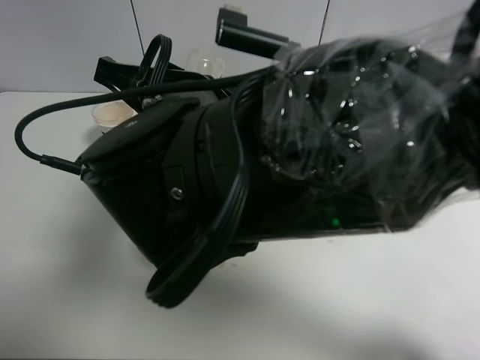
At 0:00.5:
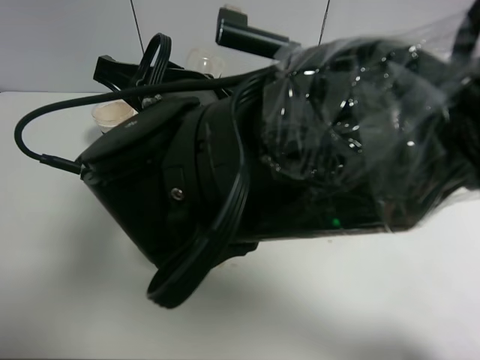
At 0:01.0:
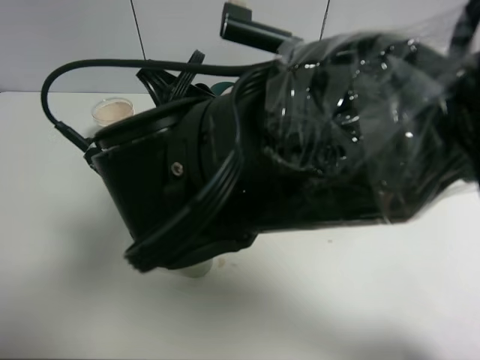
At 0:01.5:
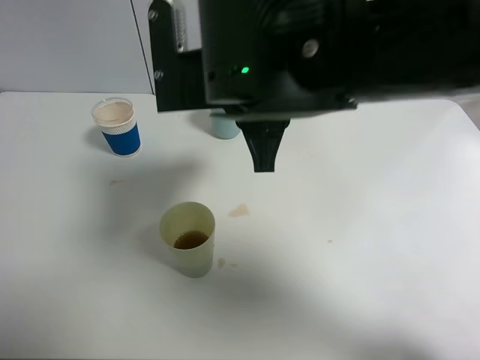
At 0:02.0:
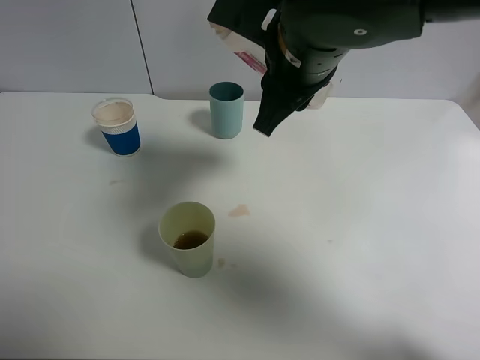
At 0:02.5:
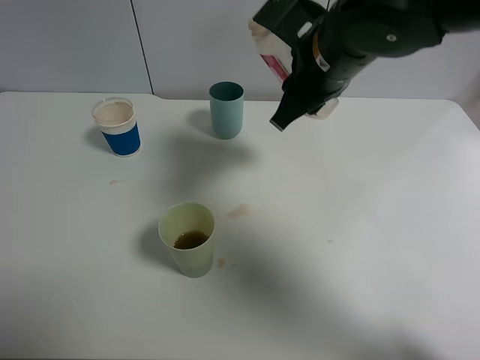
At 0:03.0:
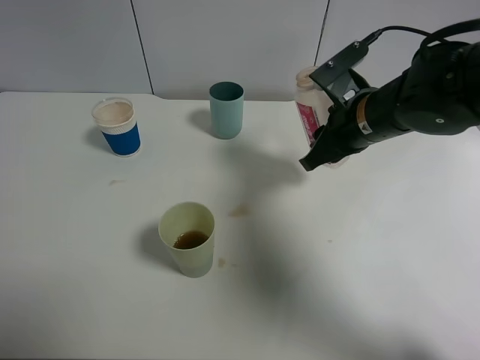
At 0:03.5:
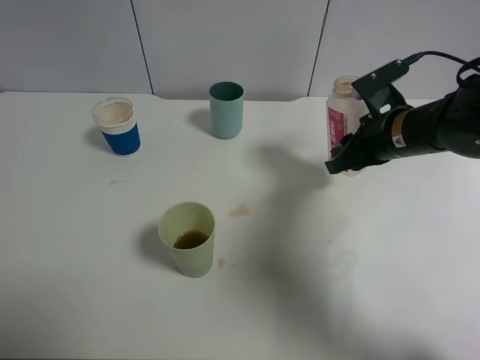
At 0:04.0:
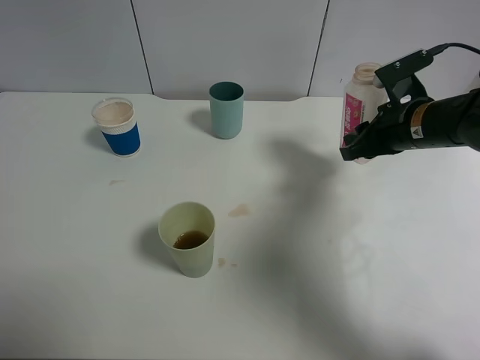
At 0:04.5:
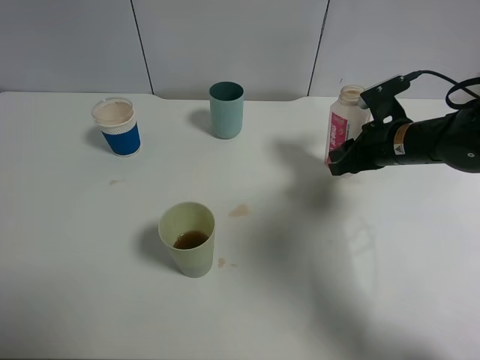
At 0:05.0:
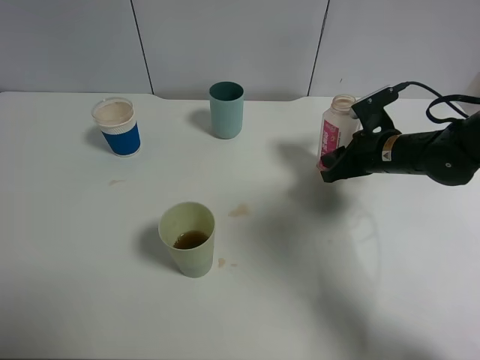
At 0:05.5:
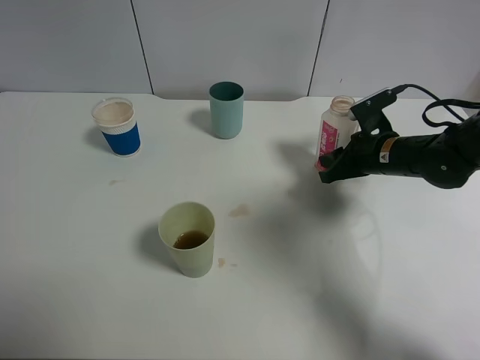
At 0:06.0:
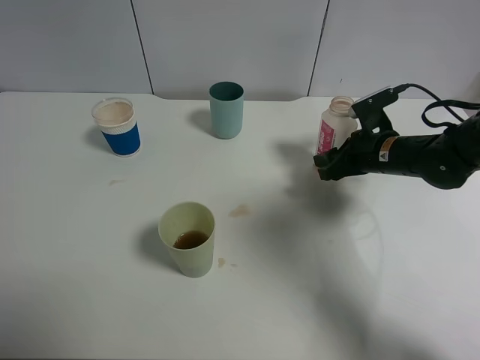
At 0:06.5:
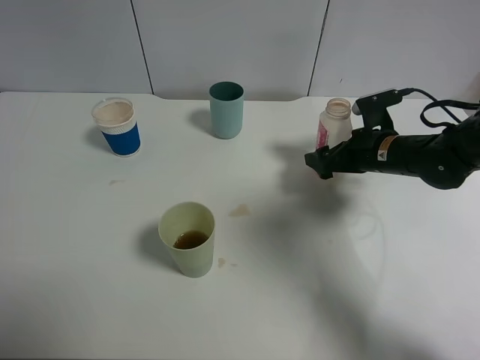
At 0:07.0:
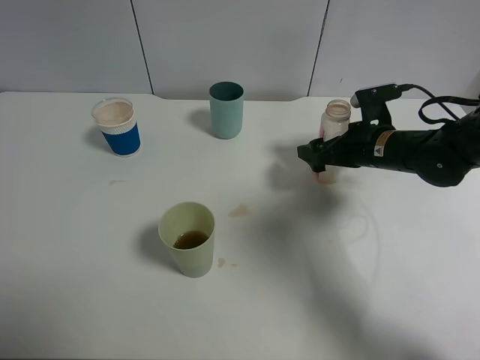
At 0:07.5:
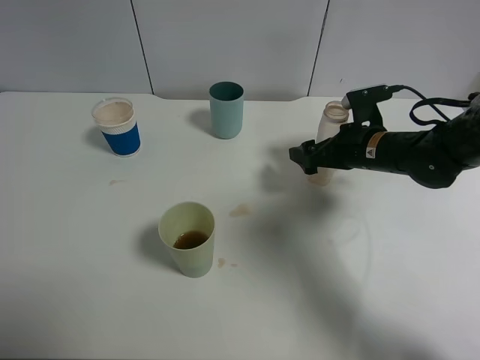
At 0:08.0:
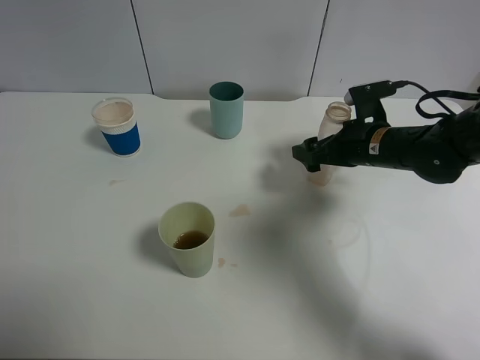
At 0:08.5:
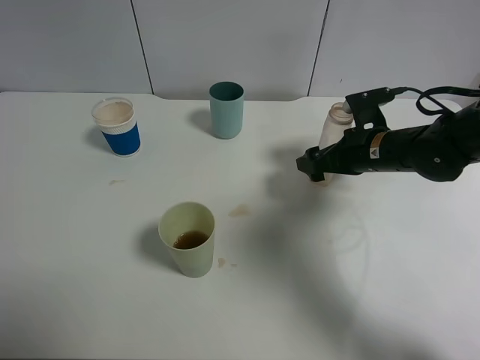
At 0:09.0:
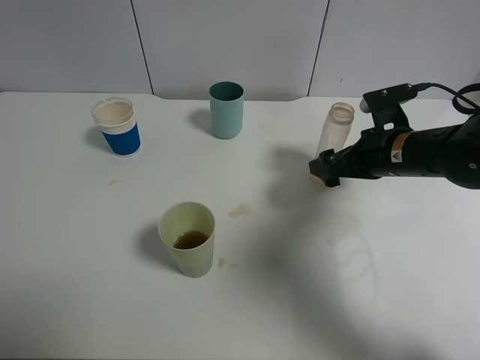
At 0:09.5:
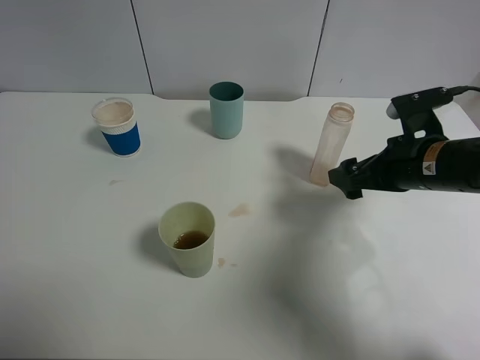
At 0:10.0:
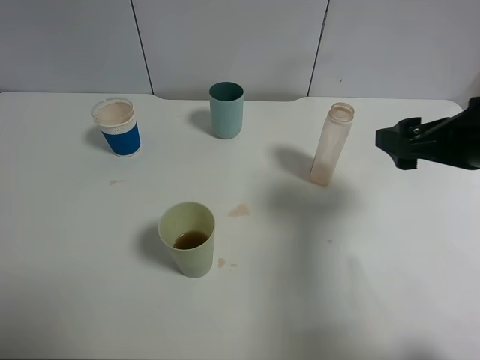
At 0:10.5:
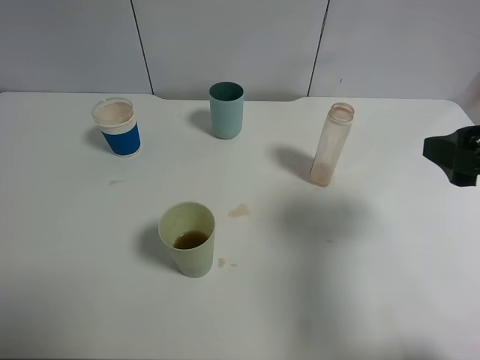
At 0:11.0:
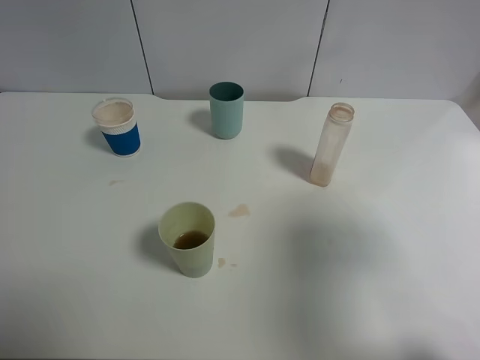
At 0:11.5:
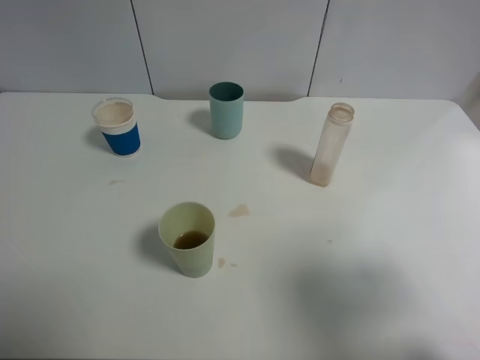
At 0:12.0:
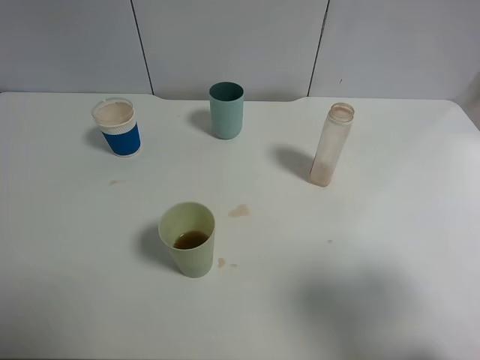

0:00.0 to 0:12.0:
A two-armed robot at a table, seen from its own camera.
Task of the whole recording: use a clamp to hold the bottle of the drink, pour the beverage into a random cup, then clamp the cup containing the drink and pour the drink into another random cup.
Step, 0:01.5 to 0:07.5: Place the drink bottle on the table with right gripper.
0:00.0 to 0:02.0: The right gripper shifts roughly 10 cm to the right and forward.
0:02.0 to 0:04.0: The right gripper is displaced to the right and downward by approximately 25 cm.
0:04.0 to 0:06.0: The right gripper travels downward by about 5 cm.
0:06.0 to 0:08.0: The right gripper opens.
0:08.0 to 0:10.0: The right gripper travels backward and upward by some 15 cm.
0:10.0 to 0:12.0: The right gripper is displaced backward by approximately 20 cm.

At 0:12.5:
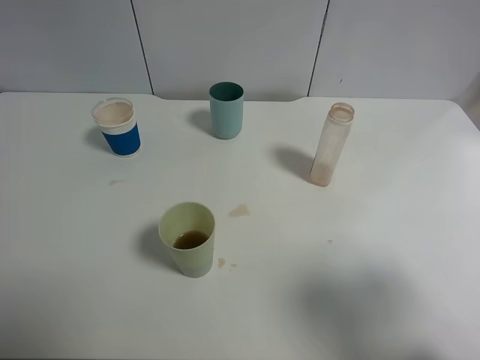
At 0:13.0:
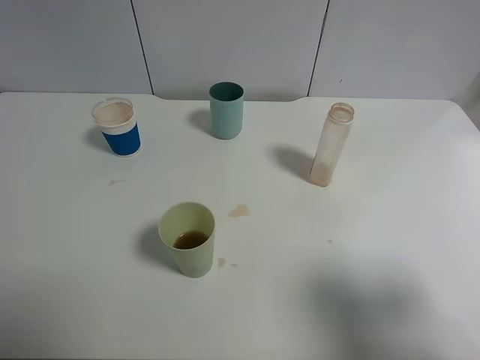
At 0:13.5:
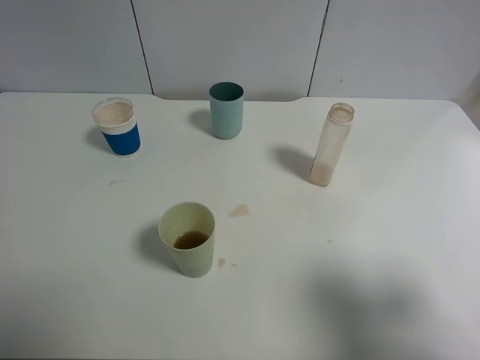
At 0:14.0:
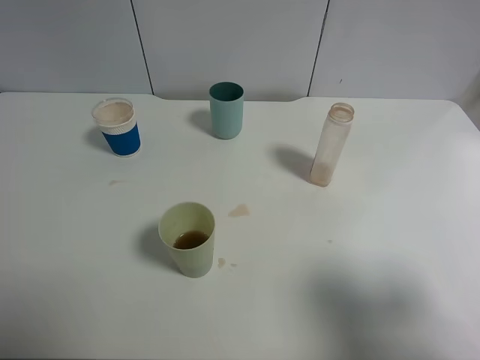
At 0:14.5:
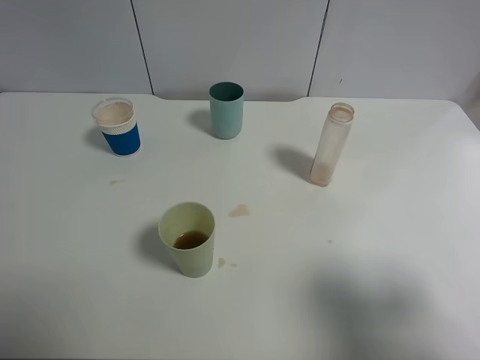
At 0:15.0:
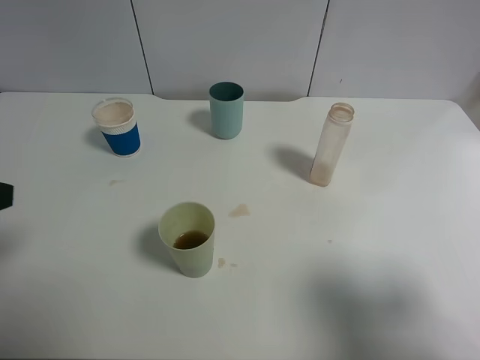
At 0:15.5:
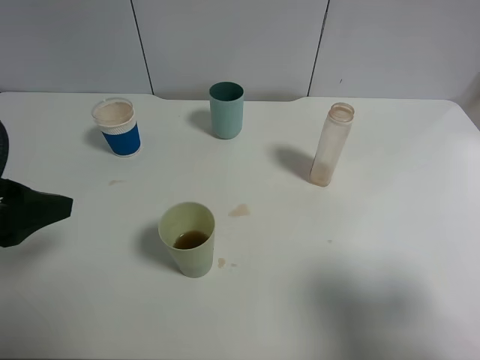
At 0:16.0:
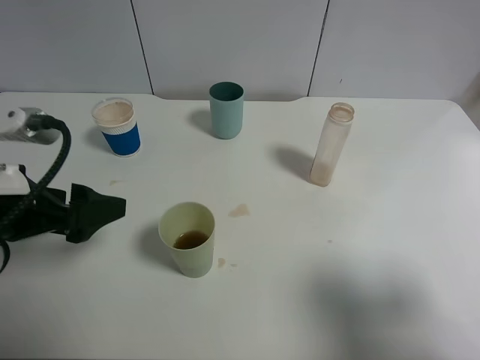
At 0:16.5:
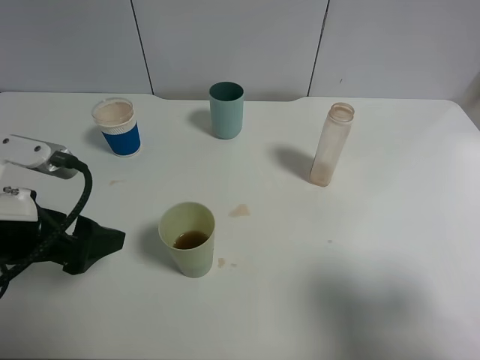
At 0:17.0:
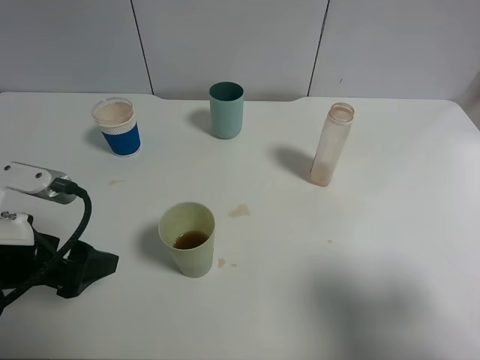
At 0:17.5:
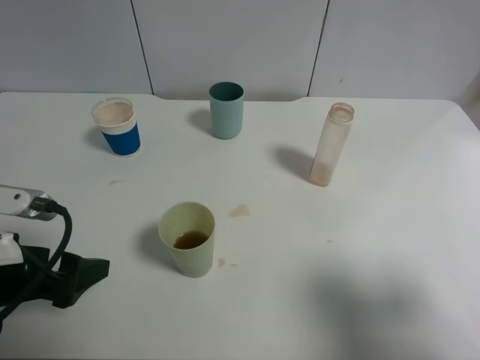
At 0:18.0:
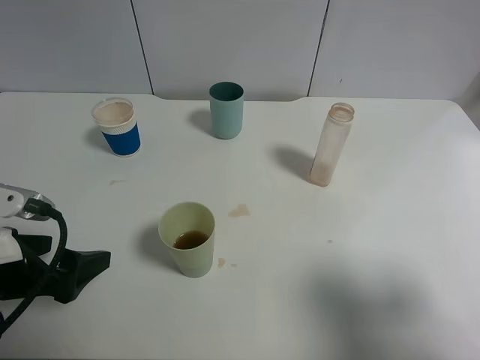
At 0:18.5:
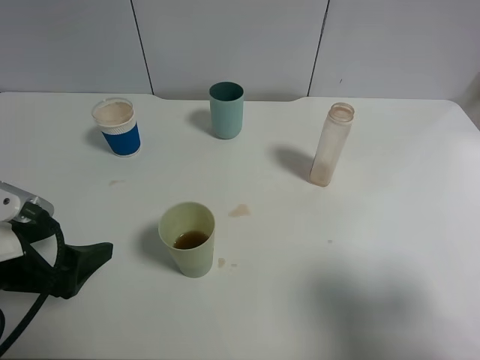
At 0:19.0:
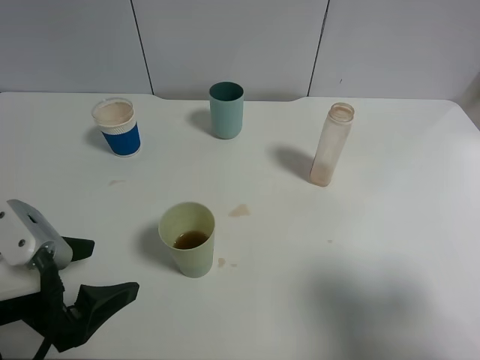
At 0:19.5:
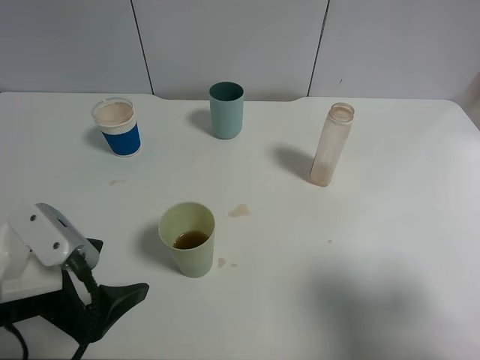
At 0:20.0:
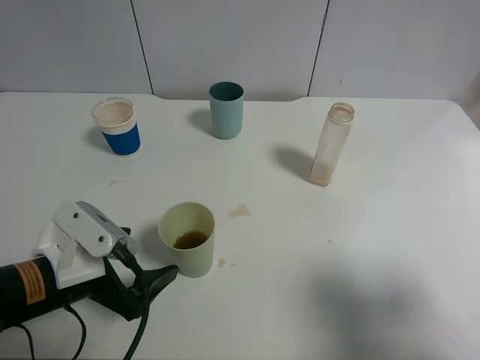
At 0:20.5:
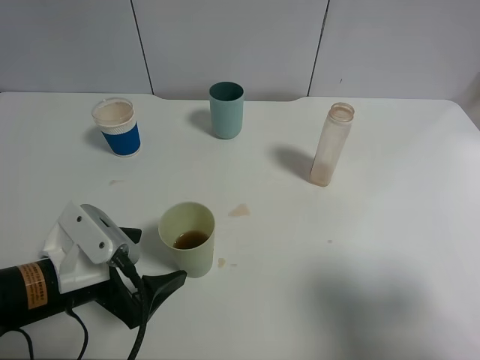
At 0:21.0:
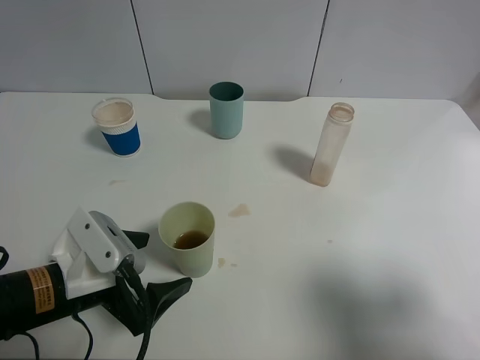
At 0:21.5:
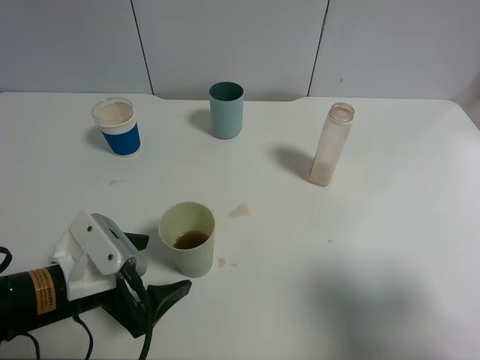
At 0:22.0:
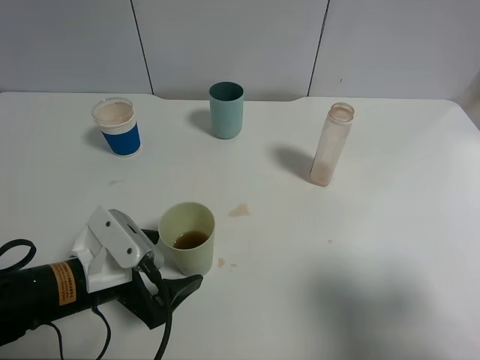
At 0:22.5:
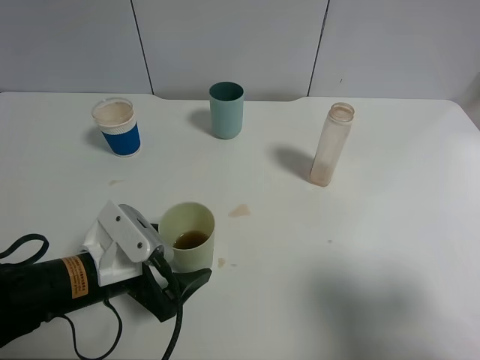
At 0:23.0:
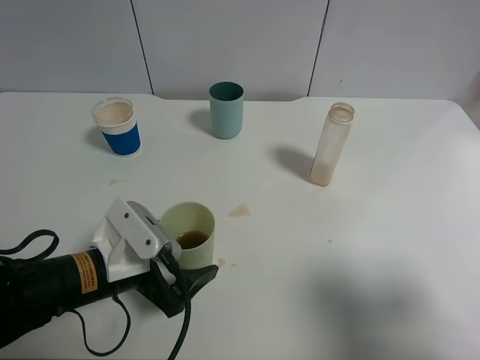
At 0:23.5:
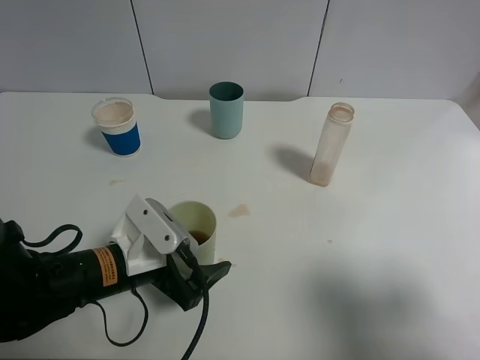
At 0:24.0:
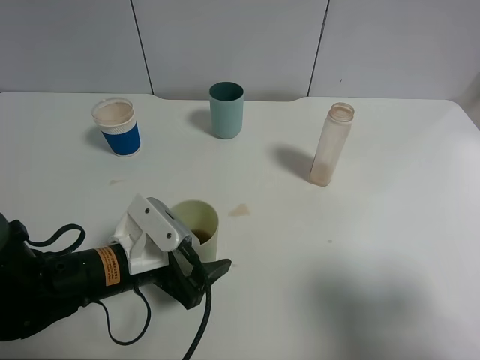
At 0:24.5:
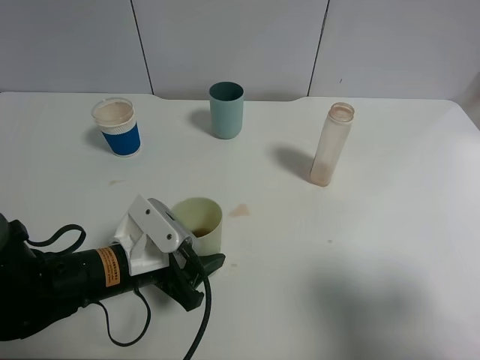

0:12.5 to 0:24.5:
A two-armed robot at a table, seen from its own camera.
Task of the whole recording: use a clamp to hold the bottle of the drink, pour the beverage into a random cup, then clamp the cup containing the drink and pour the drink into another random cup.
0:14.5 to 0:16.5: The left gripper moves forward, downward and to the right, approximately 15 cm.
0:16.5 to 0:18.5: The left gripper shifts by some 5 cm.
0:18.5 to 0:20.5: The left gripper moves to the right, roughly 5 cm.
0:20.5 to 0:22.5: There are only small adjustments of the grippers.
0:22.5 to 0:24.5: The left gripper closes its fingers.

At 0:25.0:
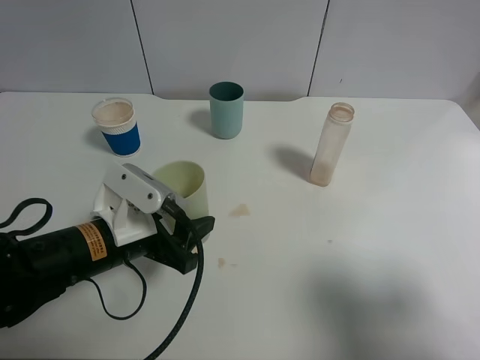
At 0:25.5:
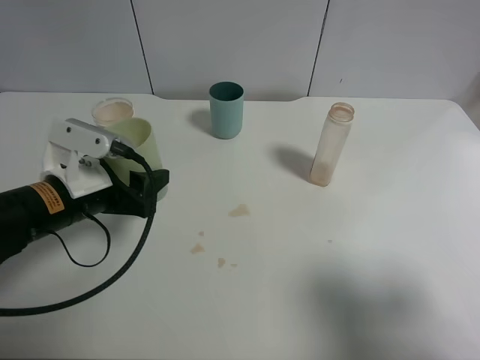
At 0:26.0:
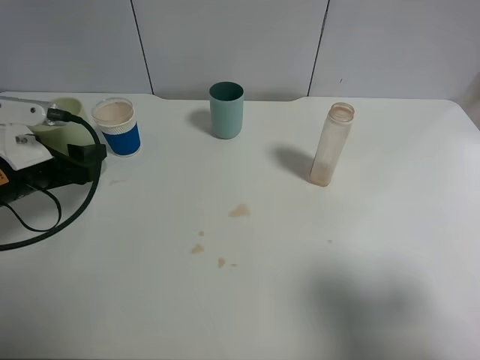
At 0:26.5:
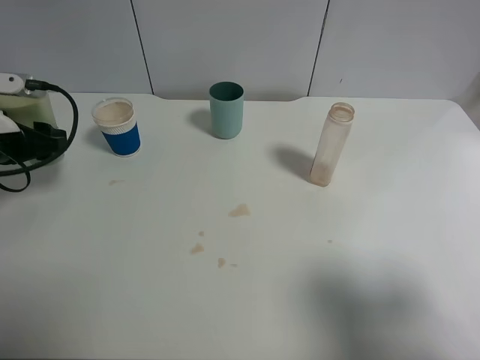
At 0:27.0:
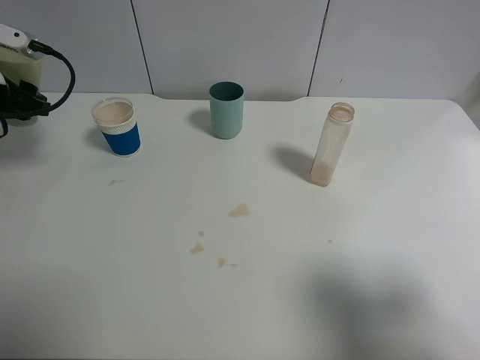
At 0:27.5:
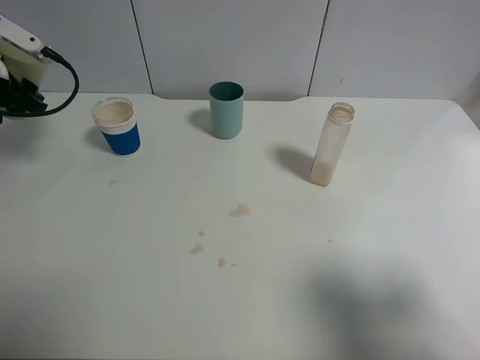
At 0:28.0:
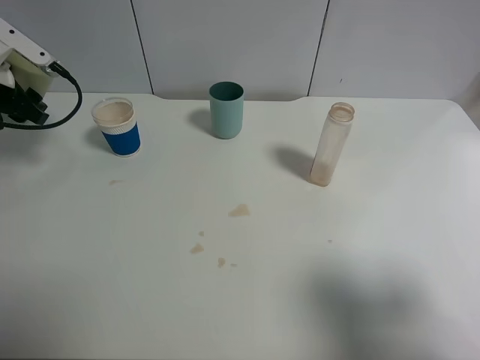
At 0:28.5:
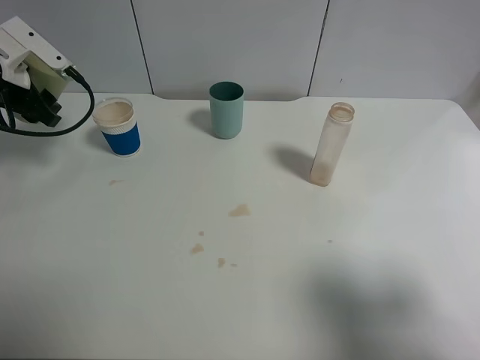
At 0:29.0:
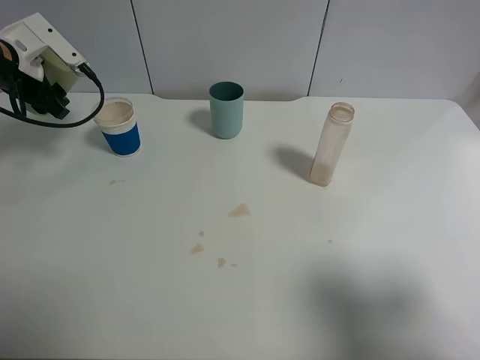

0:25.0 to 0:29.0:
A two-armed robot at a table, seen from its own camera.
Task of the whole recording: use a clamp to hold the bottle of the drink, pour the beverage into a random cup, then clamp the cup containing the drink and pour the drink into another random cup.
0:25.0 to 0:27.0: The left gripper travels to the left, forward and upward by approximately 30 cm.
0:27.0 to 0:29.0: The left gripper moves forward, approximately 5 cm.
